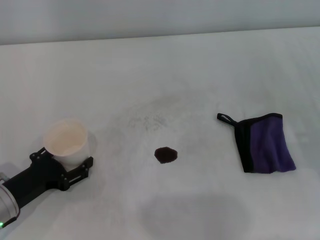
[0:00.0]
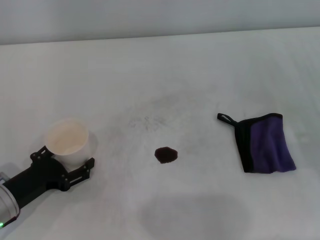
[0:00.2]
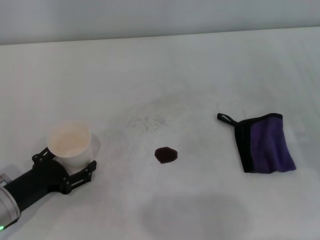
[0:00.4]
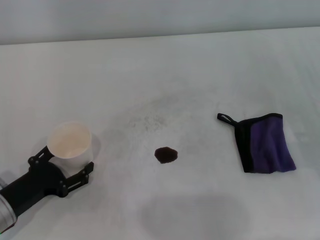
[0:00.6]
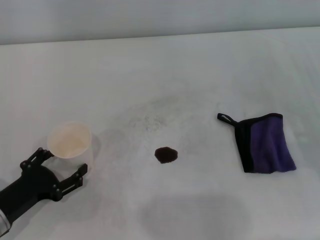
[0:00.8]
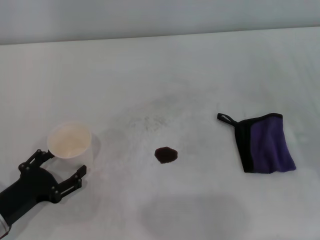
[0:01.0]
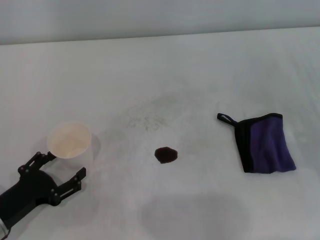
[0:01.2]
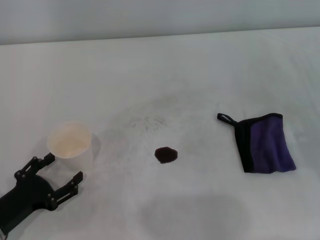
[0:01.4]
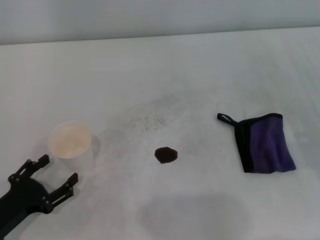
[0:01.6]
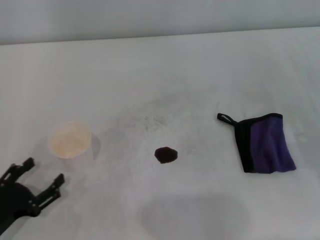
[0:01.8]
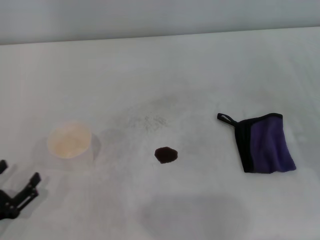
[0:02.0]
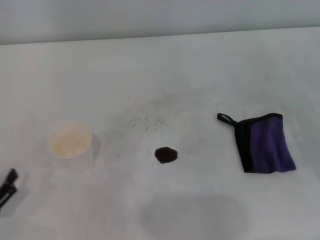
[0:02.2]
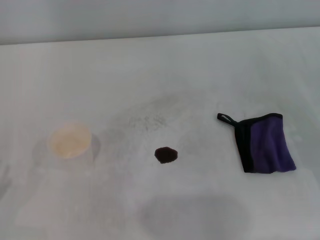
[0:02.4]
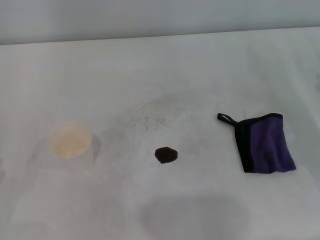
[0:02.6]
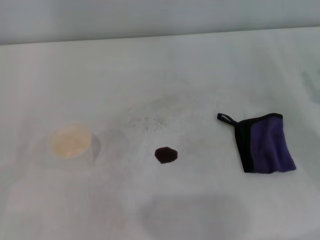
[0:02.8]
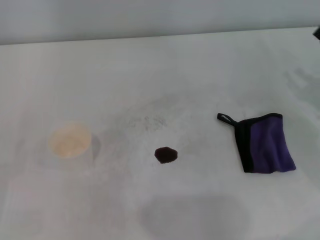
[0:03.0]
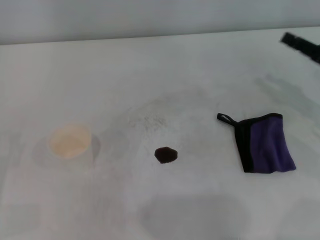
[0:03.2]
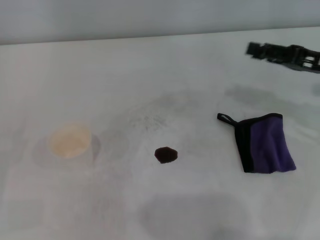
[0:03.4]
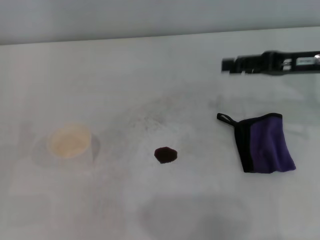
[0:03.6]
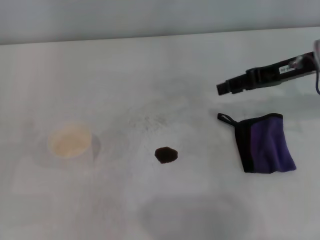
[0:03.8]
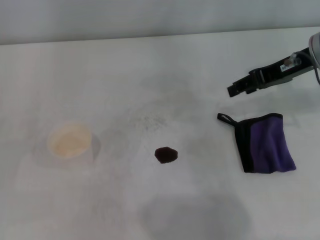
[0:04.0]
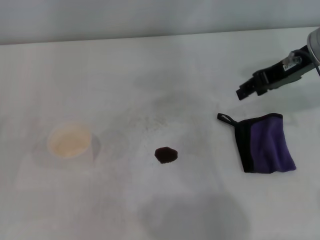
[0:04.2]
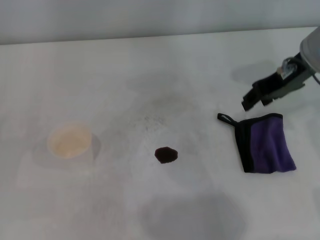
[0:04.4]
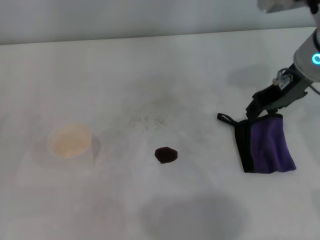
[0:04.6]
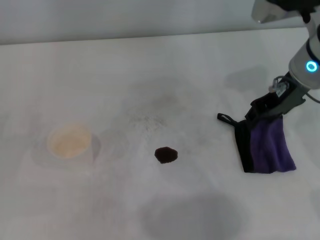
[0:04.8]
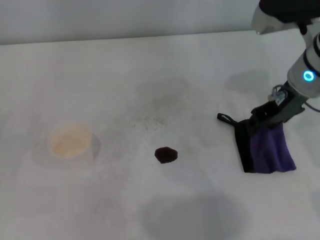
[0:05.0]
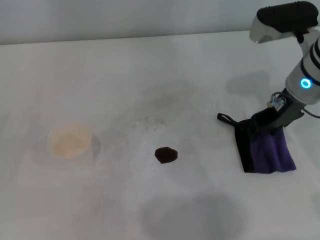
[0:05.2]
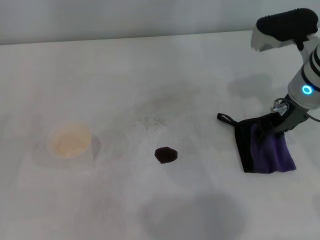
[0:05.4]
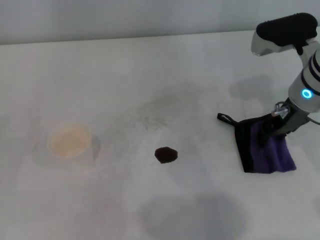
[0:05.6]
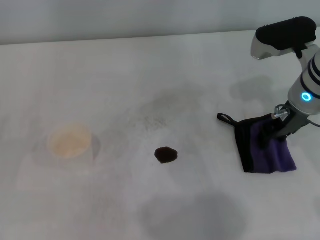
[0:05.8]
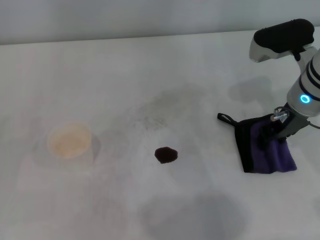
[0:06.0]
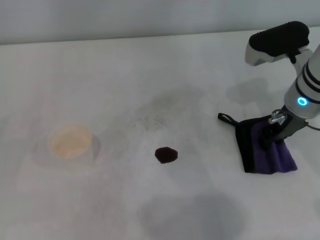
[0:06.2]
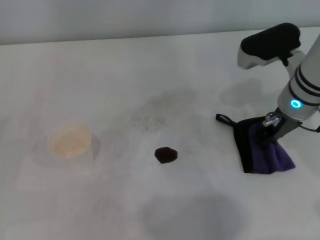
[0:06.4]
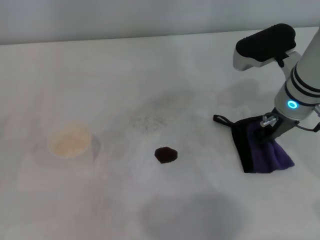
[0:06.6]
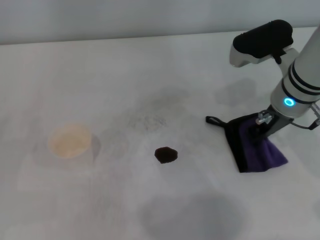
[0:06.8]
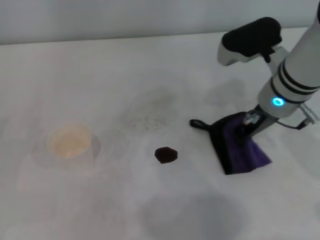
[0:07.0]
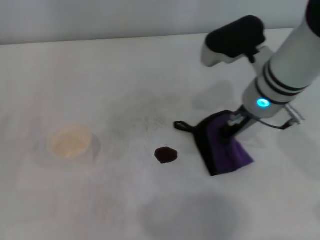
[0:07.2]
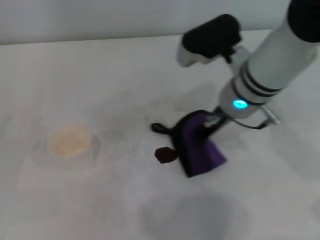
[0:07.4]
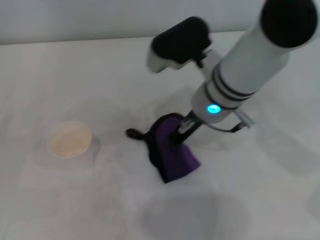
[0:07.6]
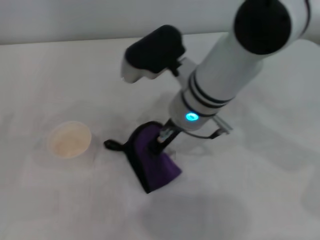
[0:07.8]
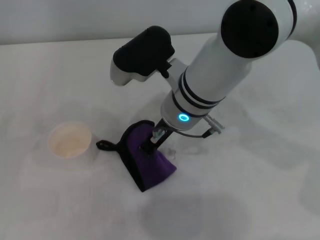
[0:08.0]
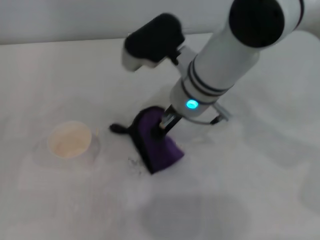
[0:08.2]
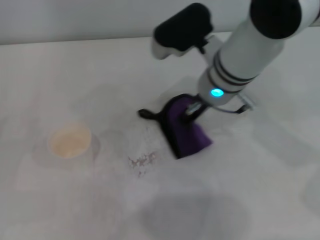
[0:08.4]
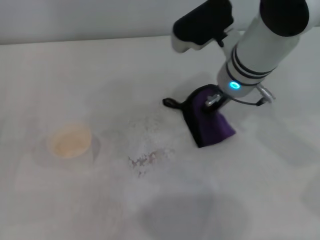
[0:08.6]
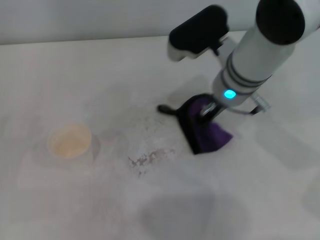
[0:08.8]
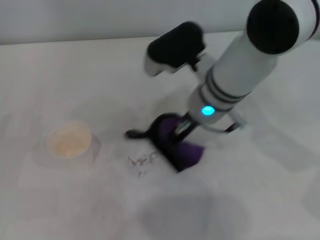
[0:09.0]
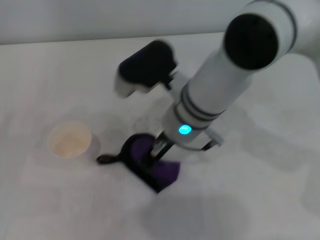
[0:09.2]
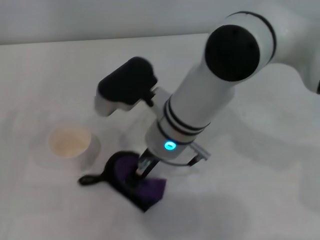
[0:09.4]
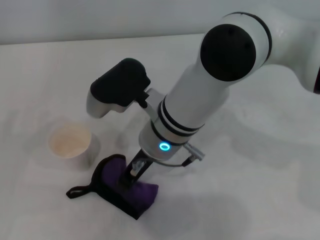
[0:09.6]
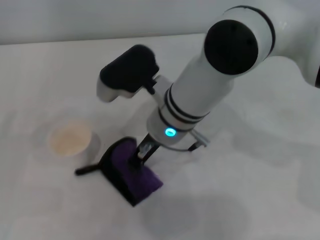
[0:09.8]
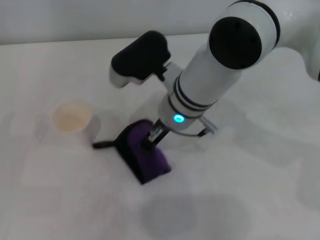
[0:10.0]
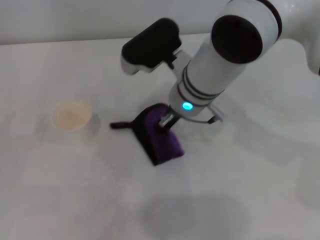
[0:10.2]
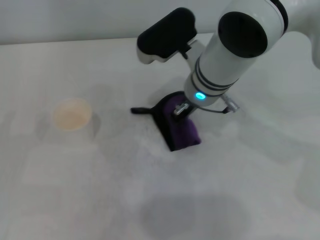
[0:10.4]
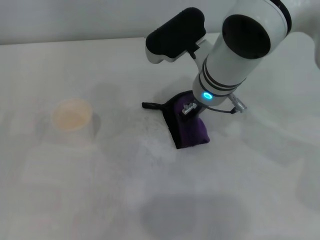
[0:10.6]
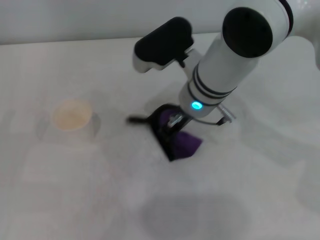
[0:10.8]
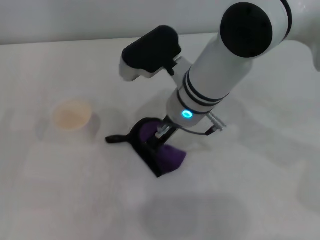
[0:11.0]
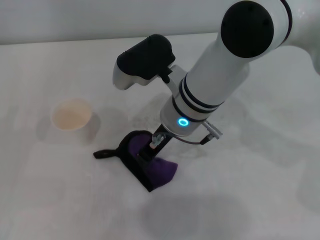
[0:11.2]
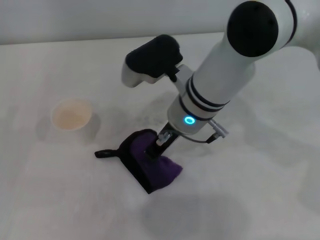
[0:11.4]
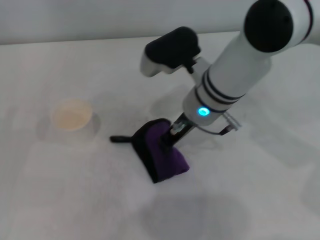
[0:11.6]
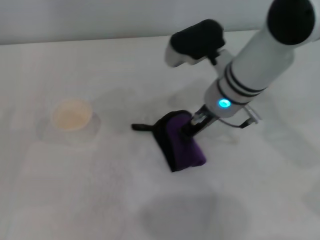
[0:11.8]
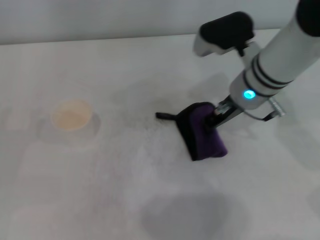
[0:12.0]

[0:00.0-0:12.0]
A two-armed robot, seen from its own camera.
Step, 0.2 to 6.4 s: Grasp the rag with the right gripper.
Step, 6.6 to 11.8 s: Wipe the stains off the table with the right gripper.
0.0 to 1.6 s: The left gripper goes roughly 5 cm backward.
1.6 to 3.0 s: The left gripper heads to the left, covering about 10 cm.
3.0 to 4.4 s: The right gripper heads to the left, upward and forward, covering some 20 cm.
4.4 to 6.0 s: The right gripper heads downward, covering about 10 cm.
6.0 to 7.6 s: The right gripper shifts approximately 15 cm to the left, and closes its fingers.
7.6 to 9.0 s: The right gripper moves some 5 cm to the left and comes back.
10.4 to 12.0 s: The right gripper is displaced to the right by approximately 10 cm.

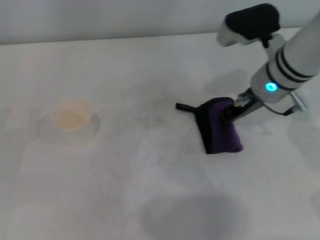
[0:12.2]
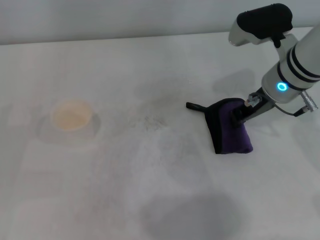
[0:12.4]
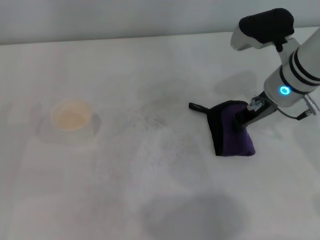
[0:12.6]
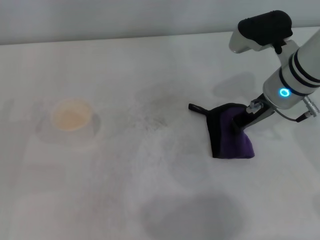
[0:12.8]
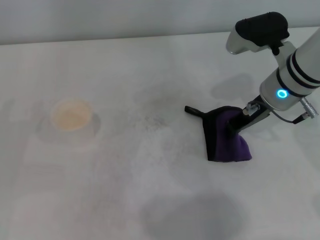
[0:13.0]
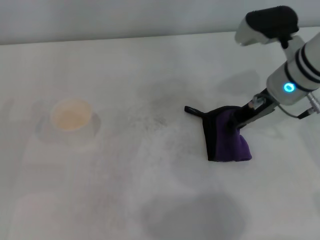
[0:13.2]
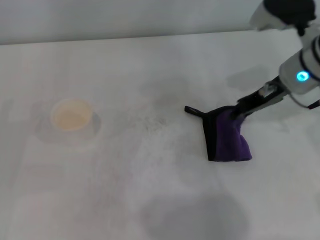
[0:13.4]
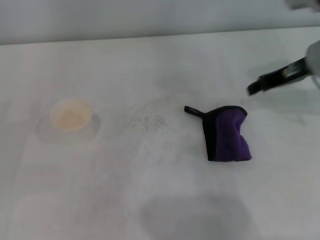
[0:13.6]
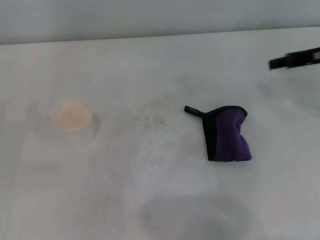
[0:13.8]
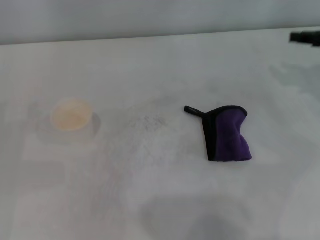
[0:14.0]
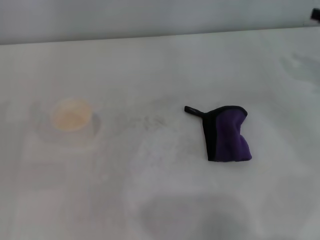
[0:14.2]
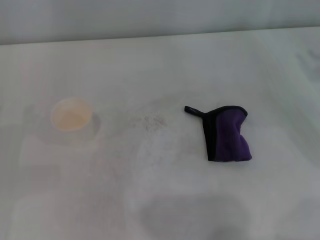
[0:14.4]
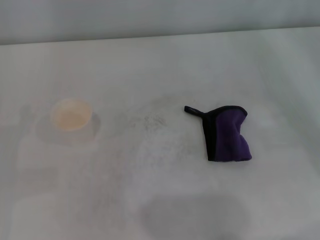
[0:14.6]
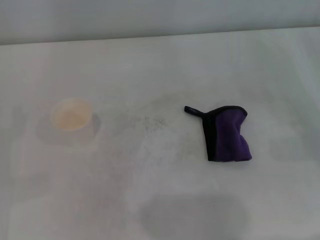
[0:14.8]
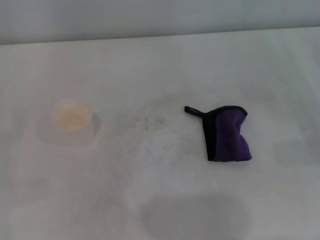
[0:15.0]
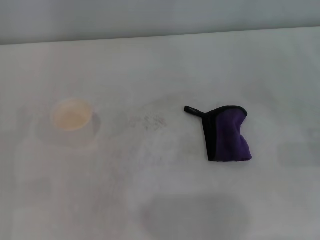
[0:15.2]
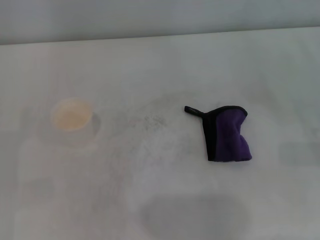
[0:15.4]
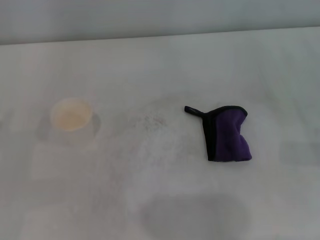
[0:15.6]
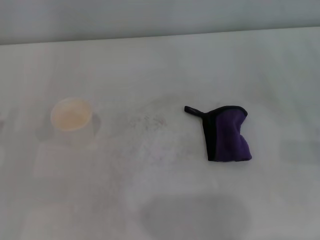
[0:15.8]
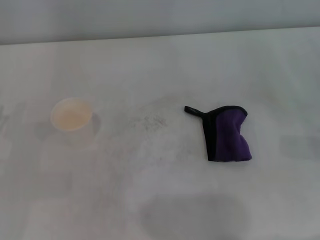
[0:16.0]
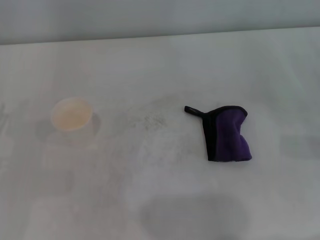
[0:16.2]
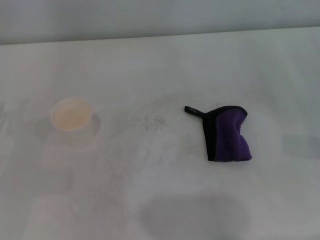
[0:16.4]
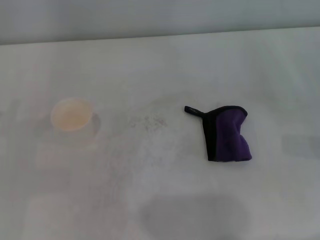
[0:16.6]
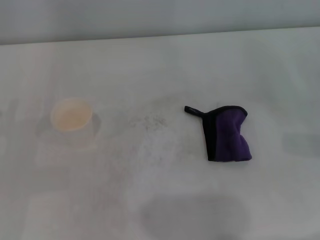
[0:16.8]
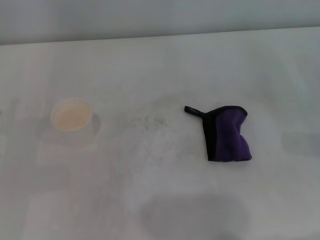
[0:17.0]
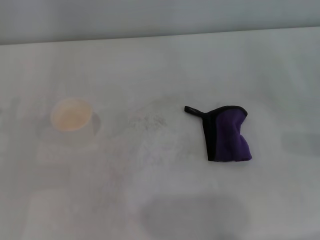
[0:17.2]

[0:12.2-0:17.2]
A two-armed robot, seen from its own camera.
Step, 12.2 to 13.0 s: Place the rag on the table with the right gripper.
12.2 to 13.8 s: The right gripper is displaced to the right by about 15 cm, and opens up.
13.8 to 15.6 s: The right gripper heads backward, to the right and downward, covering approximately 20 cm.

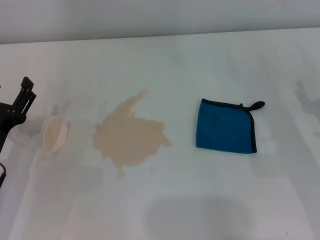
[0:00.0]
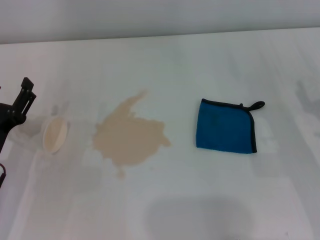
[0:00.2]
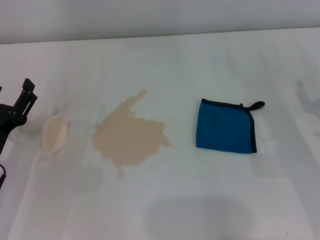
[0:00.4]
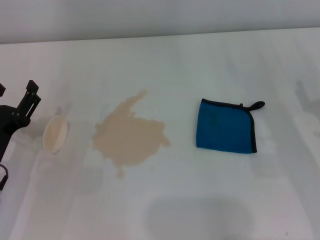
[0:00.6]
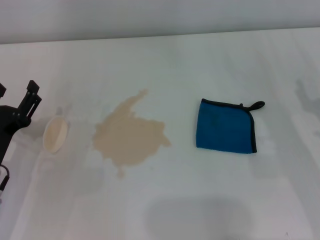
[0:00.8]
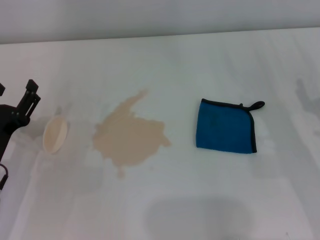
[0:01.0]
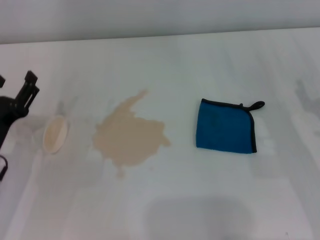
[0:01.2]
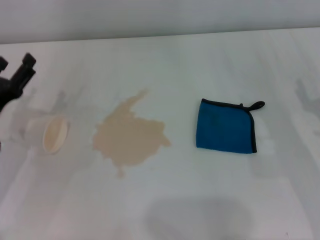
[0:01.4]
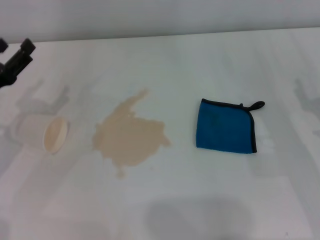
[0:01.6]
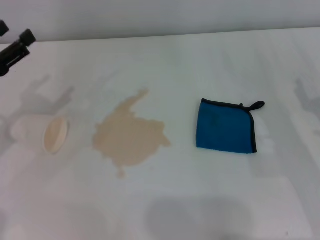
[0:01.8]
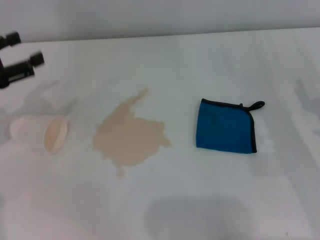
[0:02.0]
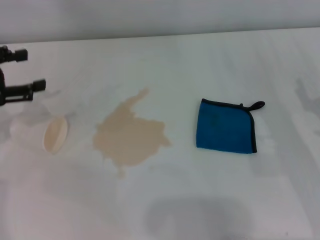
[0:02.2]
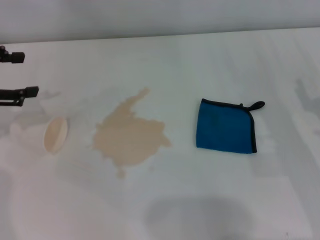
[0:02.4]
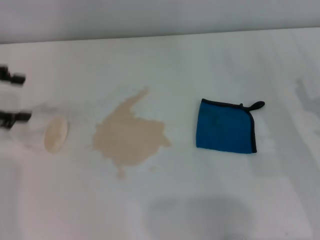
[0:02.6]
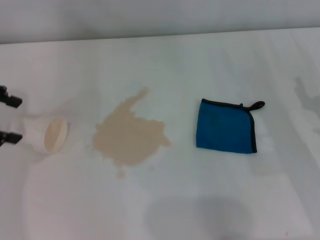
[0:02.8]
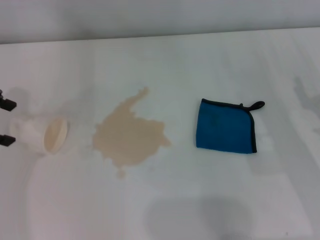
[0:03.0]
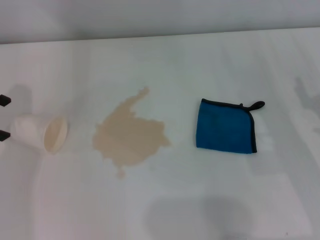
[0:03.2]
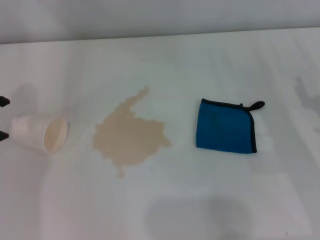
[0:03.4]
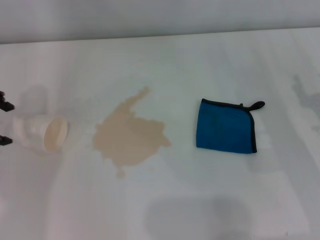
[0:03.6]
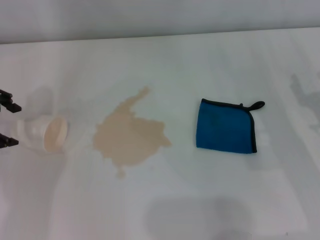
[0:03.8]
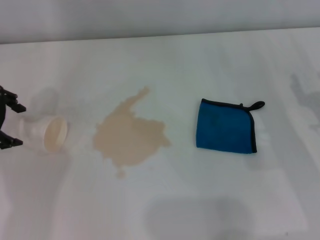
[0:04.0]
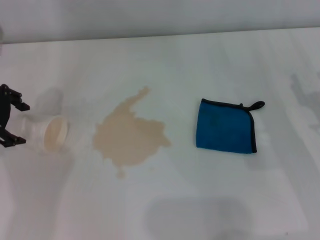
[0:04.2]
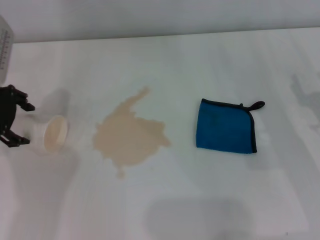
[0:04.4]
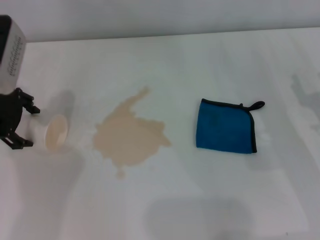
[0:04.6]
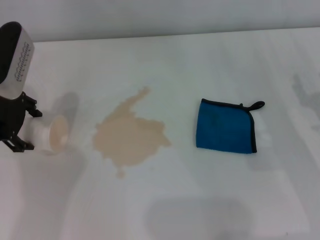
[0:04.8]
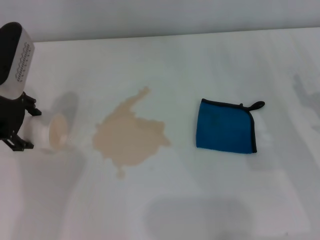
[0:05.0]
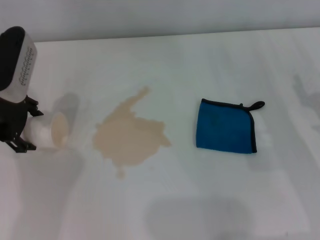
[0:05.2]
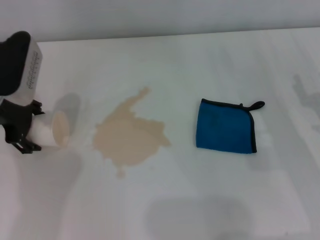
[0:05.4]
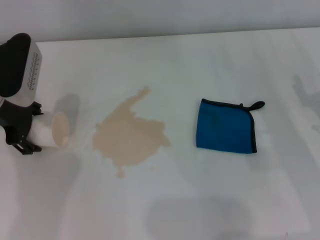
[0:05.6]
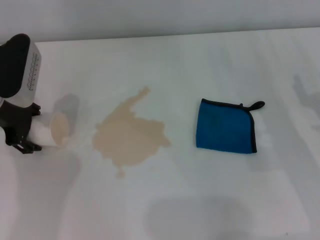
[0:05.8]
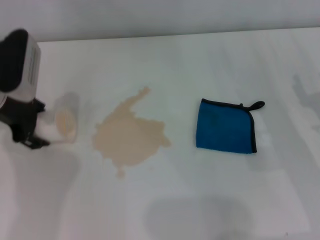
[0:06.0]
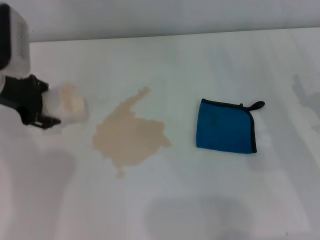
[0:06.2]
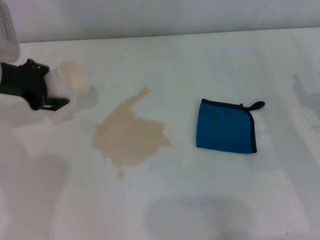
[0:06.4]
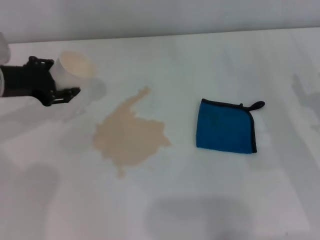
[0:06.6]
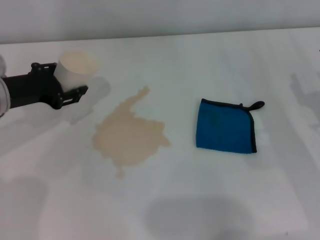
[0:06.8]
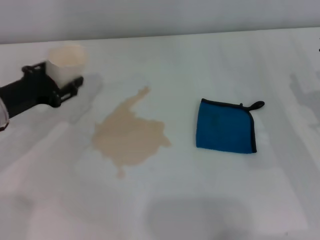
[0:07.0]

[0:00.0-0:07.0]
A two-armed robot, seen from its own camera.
Step, 0.0 to 5.6 s: Grasp the paper cup with the left gripper.
0.0 to 1.4 s: There are only small adjustments of the grippers.
1.4 to 2.8 s: The left gripper is displaced upward, forward and to the left by approximately 20 cm.
2.8 to 4.2 s: The left gripper heads to the right, covering roughly 5 cm.
4.2 to 5.6 s: The left gripper changes place by some 5 cm.
5.6 to 7.0 s: The left gripper moves downward, approximately 5 cm, and closes up.
